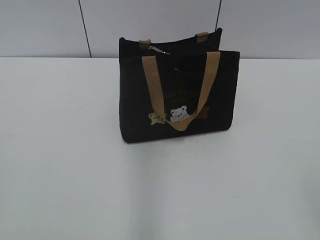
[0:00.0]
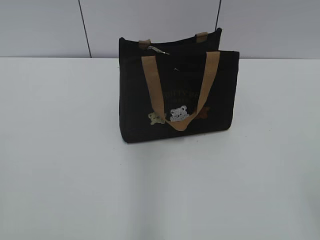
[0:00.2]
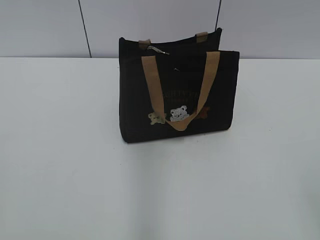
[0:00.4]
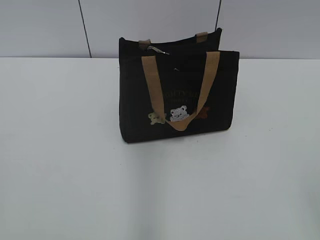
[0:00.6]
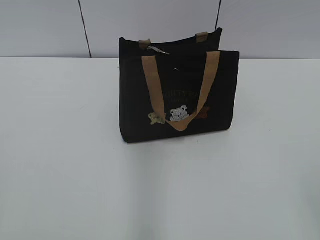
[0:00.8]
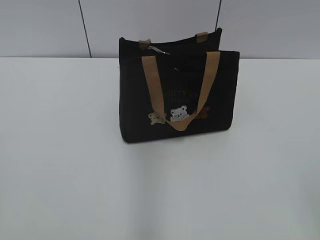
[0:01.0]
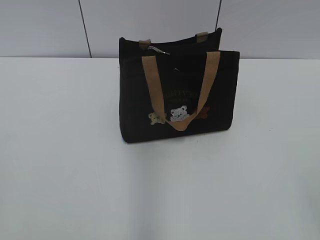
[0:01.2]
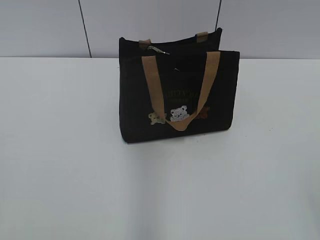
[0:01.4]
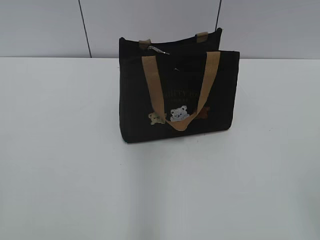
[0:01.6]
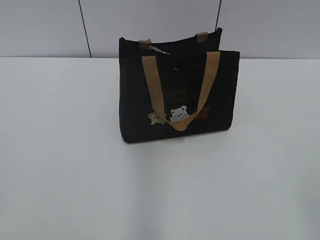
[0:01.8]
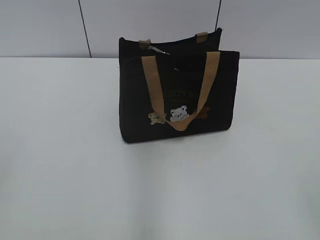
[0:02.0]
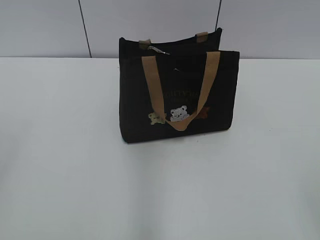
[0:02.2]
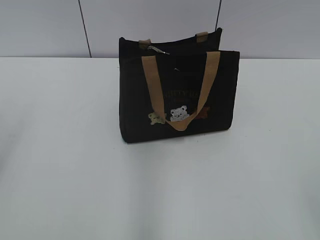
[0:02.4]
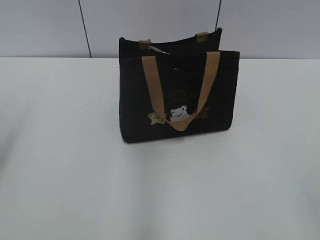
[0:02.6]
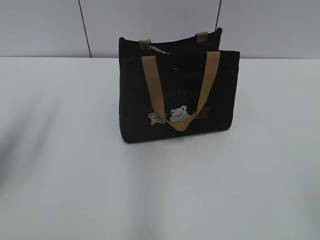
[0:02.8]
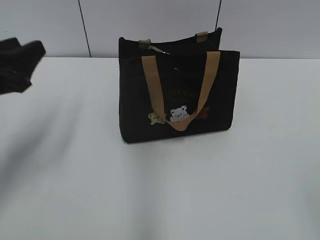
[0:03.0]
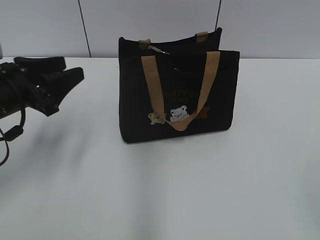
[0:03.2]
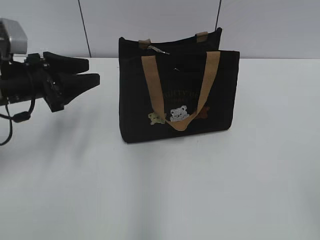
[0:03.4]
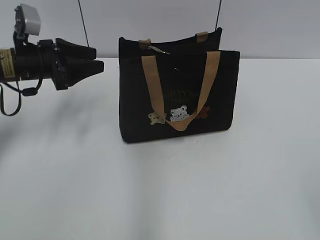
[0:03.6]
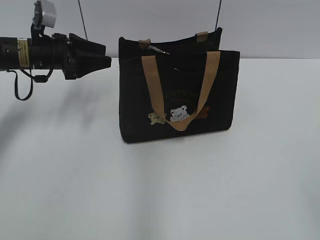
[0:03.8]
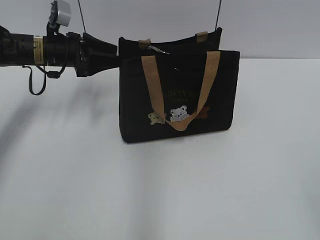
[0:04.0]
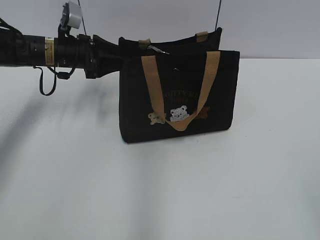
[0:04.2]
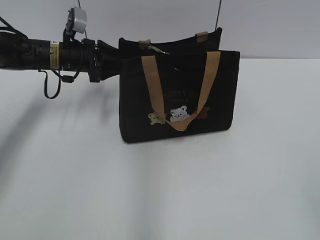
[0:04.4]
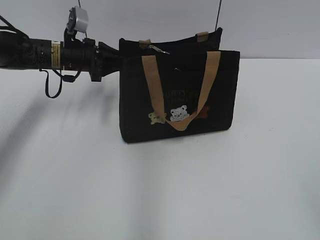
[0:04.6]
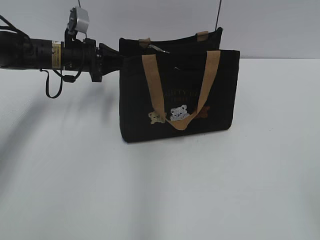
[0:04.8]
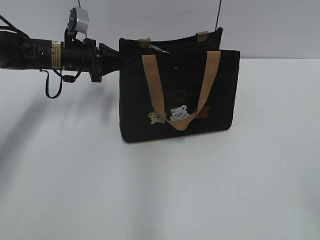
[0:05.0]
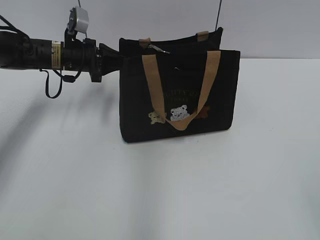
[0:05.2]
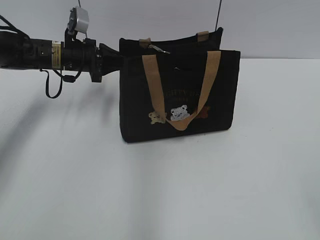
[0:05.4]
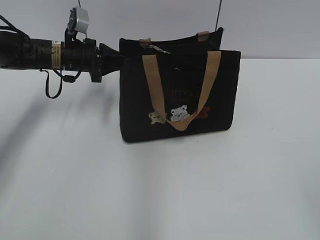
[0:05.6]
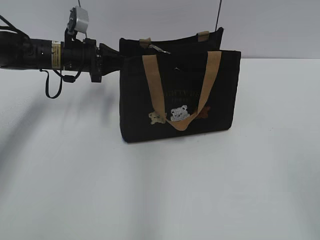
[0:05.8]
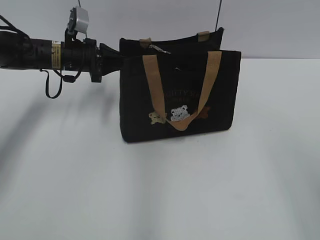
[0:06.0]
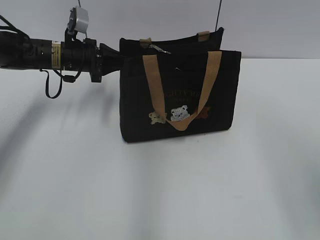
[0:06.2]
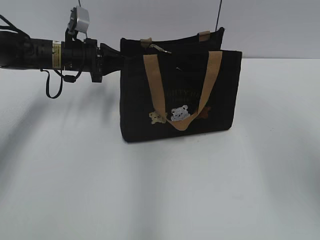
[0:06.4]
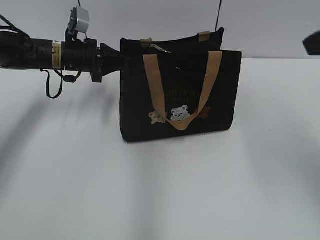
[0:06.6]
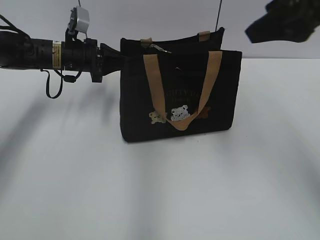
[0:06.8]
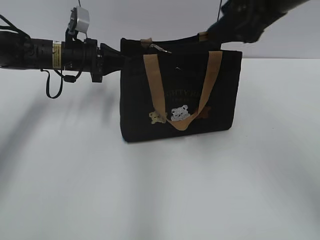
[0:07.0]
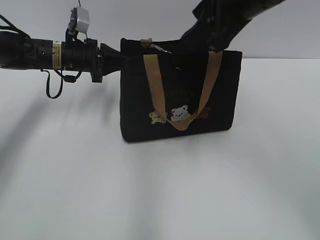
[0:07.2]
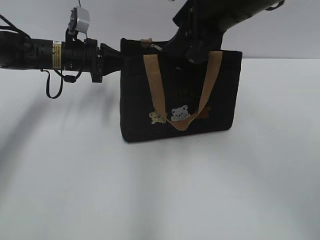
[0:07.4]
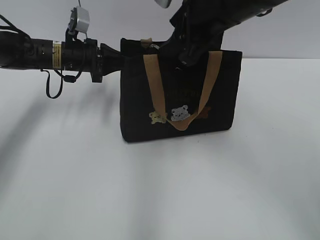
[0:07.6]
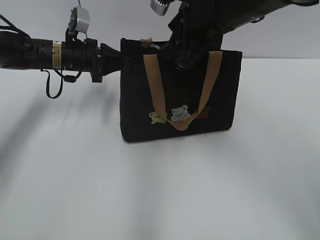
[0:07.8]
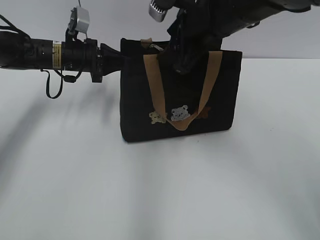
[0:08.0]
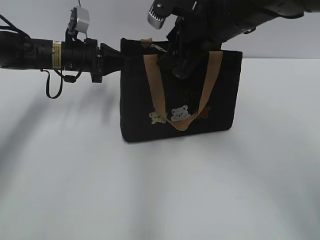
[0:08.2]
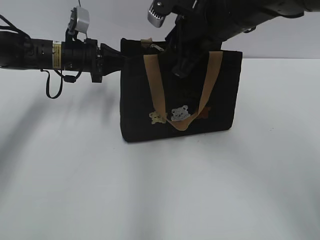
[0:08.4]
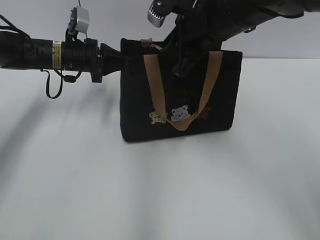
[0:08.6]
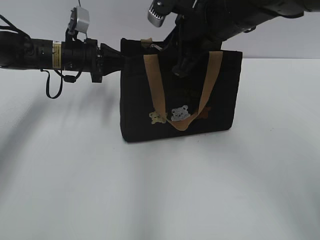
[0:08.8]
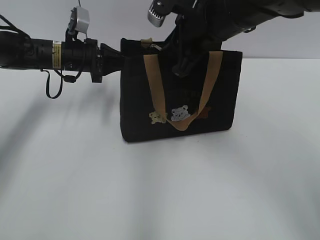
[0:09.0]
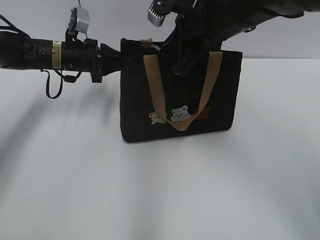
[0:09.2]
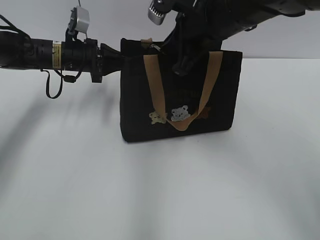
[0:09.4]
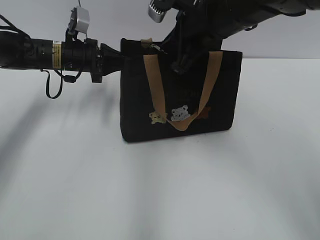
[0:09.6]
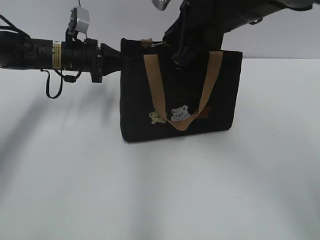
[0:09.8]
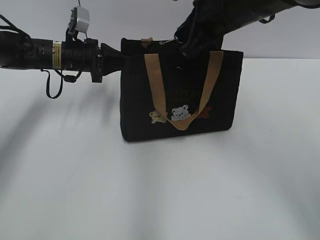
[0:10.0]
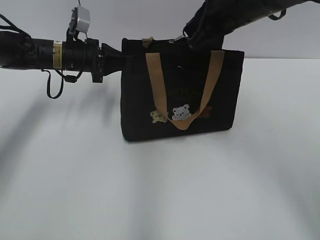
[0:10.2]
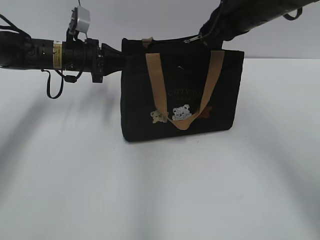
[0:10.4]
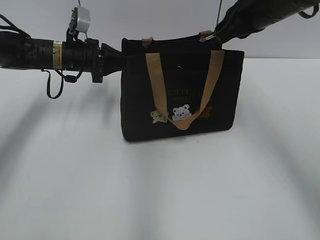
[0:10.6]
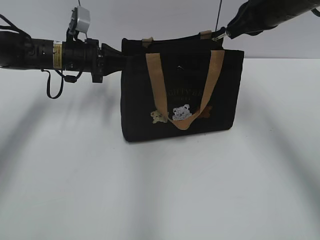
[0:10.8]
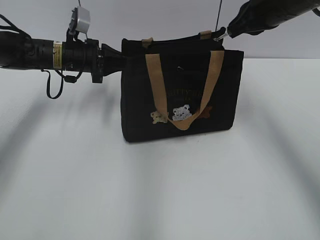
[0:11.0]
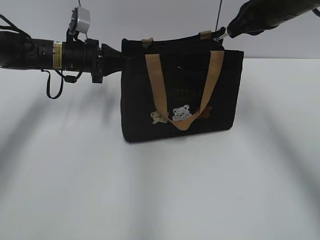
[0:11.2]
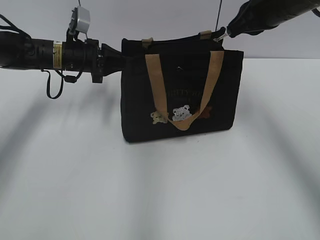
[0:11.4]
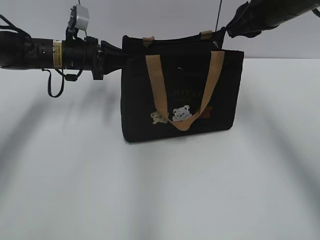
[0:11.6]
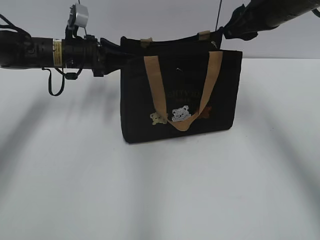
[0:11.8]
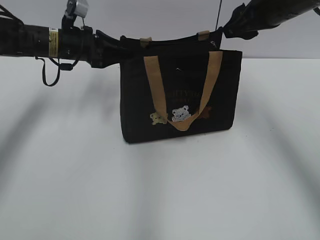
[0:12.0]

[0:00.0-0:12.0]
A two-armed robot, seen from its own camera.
Step, 0.0 to 11.4 s: Pull open the zipper with your right hand.
1.6 to 3.0 s: The left gripper shifts roughly 25 cm forward.
3.0 to 4.4 s: The left gripper moves forward, approximately 20 cm.
4.4 to 6.0 s: The right gripper moves forward, approximately 5 cm. The left gripper closes its fingers.
6.0 to 7.6 s: The right gripper is displaced forward and to the left by some 35 cm.
7.6 to 9.0 s: The right gripper closes up.
9.0 to 10.4 s: The right gripper heads to the right, covering about 5 cm.
10.4 to 12.0 s: The right gripper opens. Meanwhile the left gripper opens its fingers.

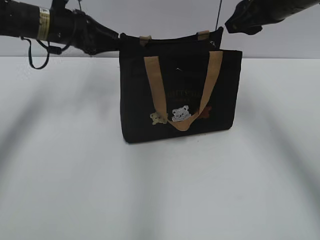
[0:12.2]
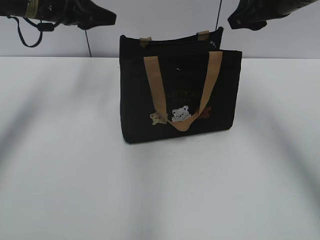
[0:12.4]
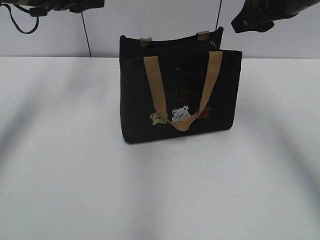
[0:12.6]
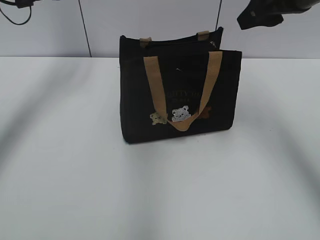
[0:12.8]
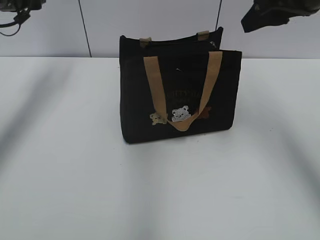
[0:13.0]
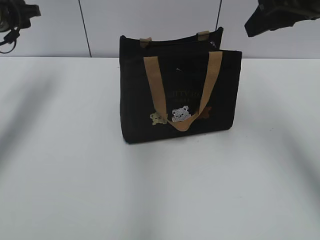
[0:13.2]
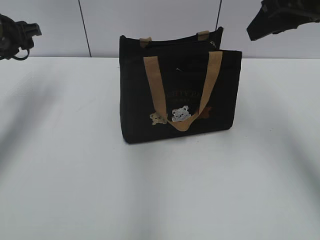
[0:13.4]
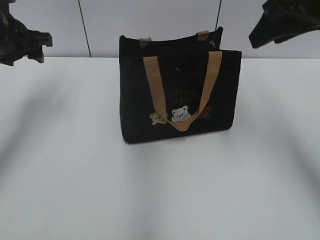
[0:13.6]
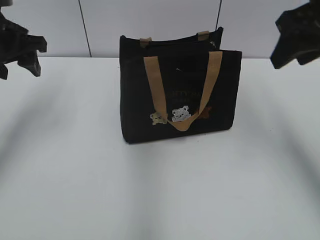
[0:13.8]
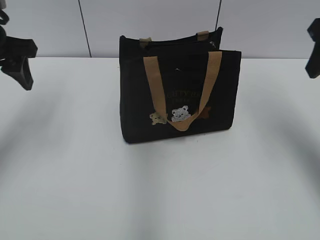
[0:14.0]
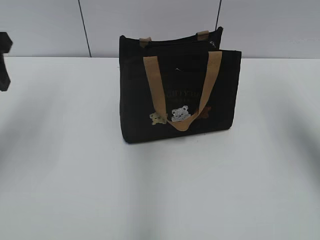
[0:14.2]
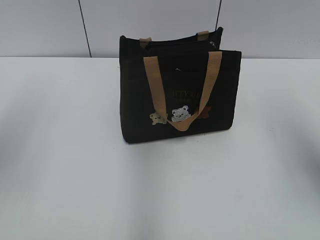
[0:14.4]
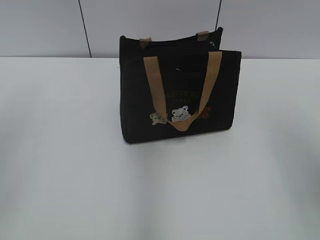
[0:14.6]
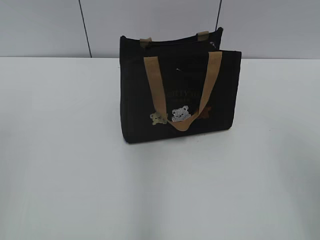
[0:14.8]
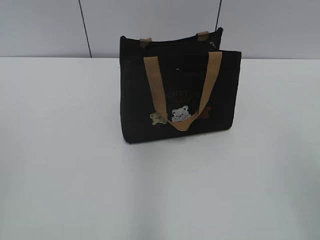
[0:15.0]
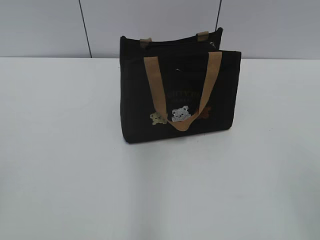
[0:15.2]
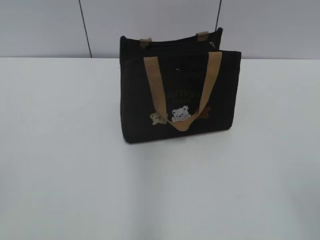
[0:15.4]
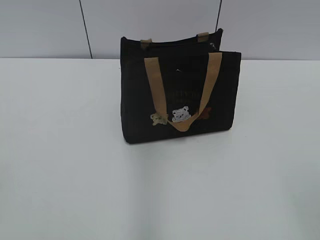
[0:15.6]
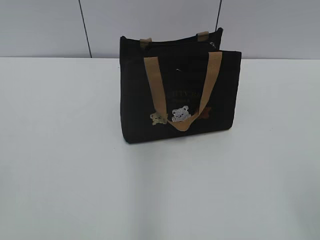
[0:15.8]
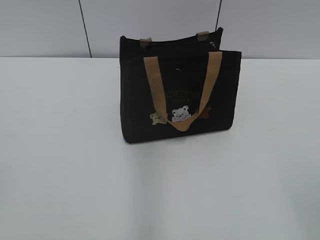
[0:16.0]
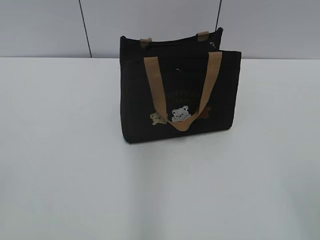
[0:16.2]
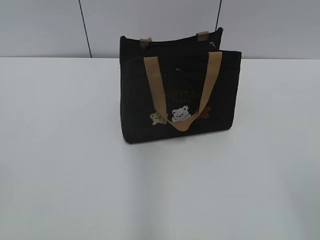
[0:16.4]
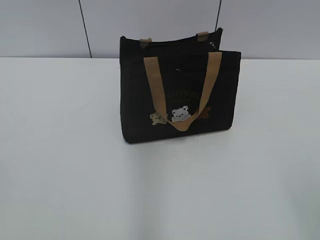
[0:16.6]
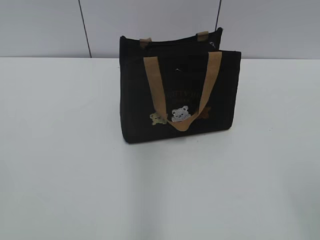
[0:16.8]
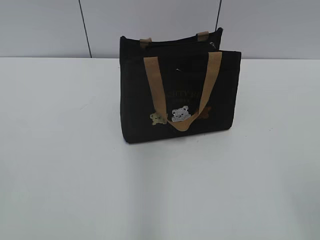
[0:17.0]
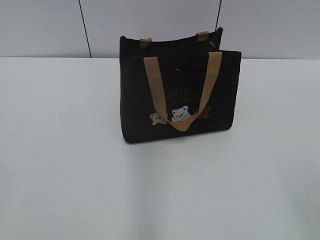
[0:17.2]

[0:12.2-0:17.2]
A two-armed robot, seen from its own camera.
12.2 to 13.8 s: The left gripper is displaced backward and to the left by some 10 cm. The right gripper is displaced backward by some 10 cm.
13.8 to 15.6 s: Both grippers move backward, some 35 cm.

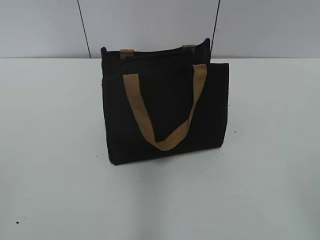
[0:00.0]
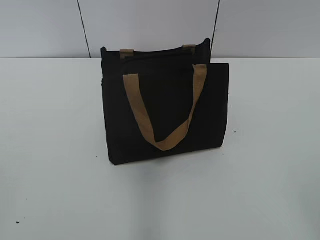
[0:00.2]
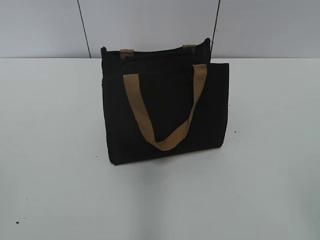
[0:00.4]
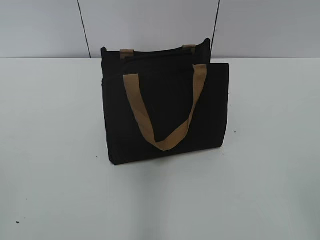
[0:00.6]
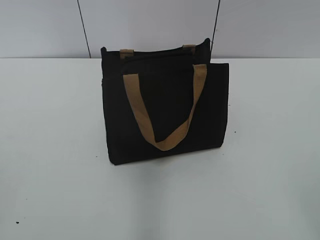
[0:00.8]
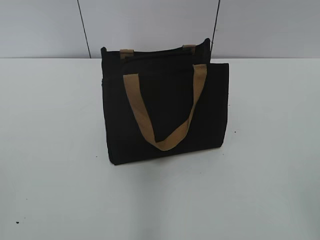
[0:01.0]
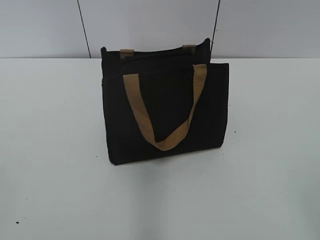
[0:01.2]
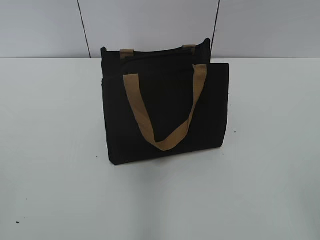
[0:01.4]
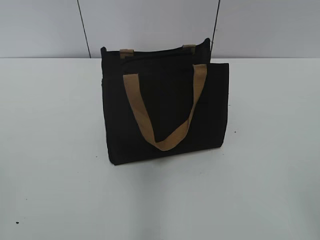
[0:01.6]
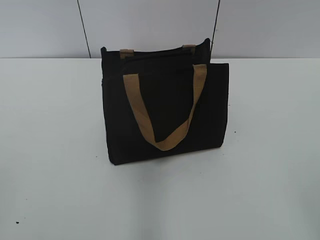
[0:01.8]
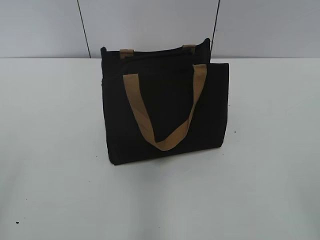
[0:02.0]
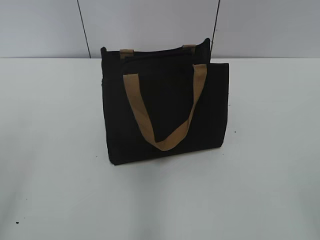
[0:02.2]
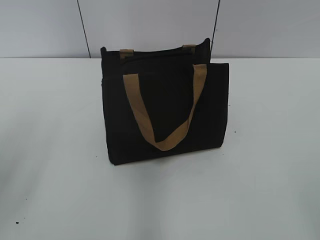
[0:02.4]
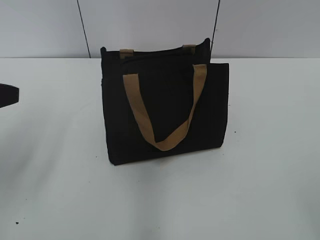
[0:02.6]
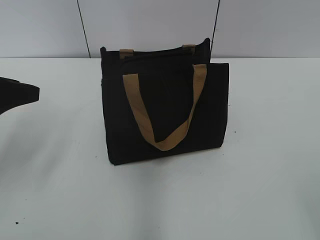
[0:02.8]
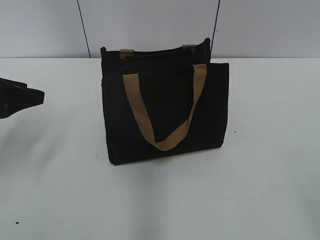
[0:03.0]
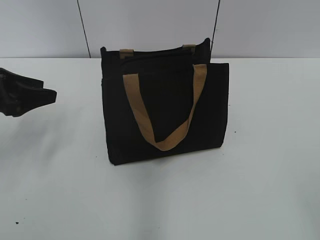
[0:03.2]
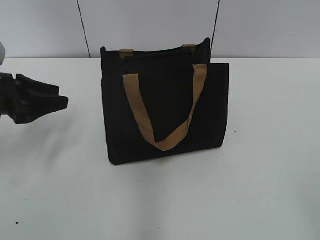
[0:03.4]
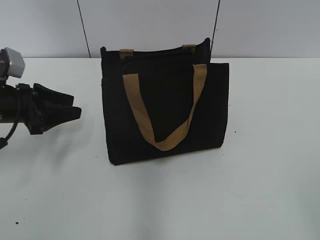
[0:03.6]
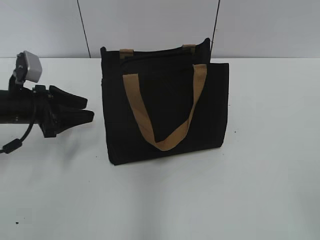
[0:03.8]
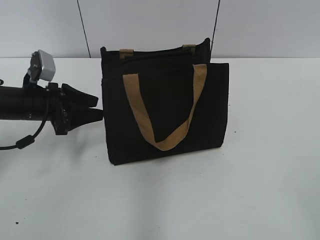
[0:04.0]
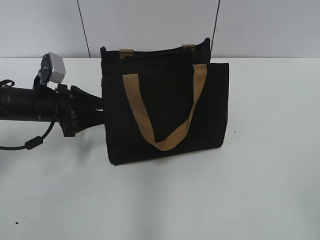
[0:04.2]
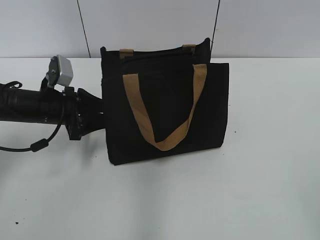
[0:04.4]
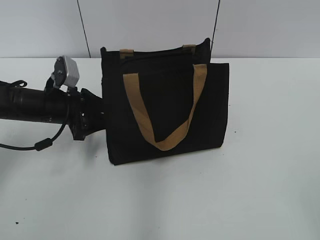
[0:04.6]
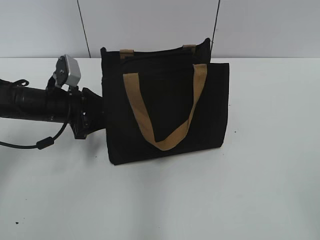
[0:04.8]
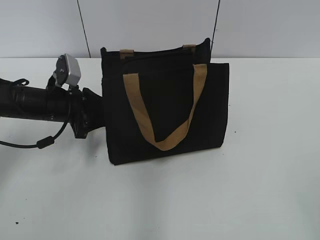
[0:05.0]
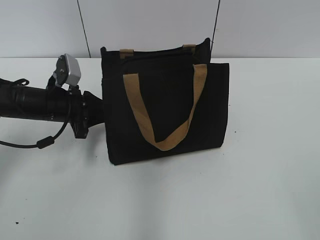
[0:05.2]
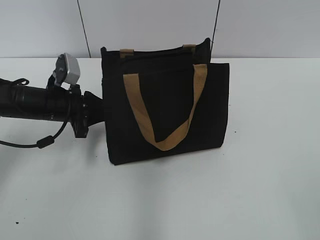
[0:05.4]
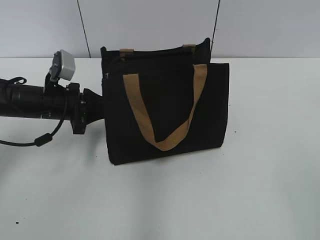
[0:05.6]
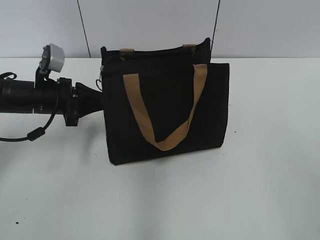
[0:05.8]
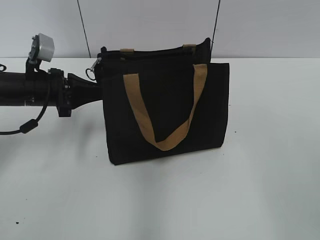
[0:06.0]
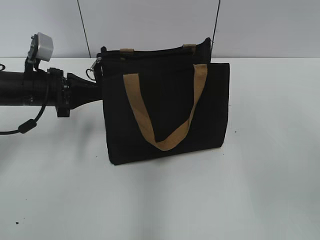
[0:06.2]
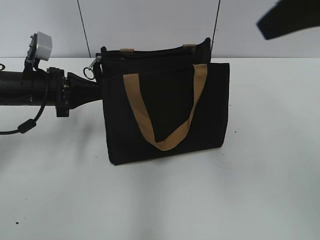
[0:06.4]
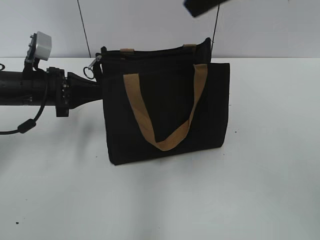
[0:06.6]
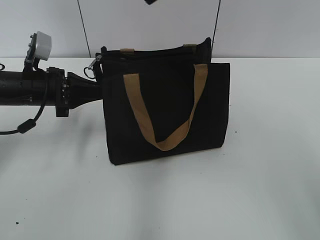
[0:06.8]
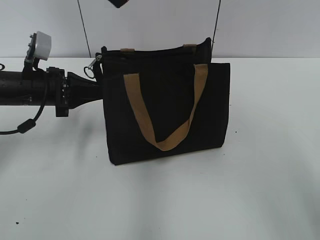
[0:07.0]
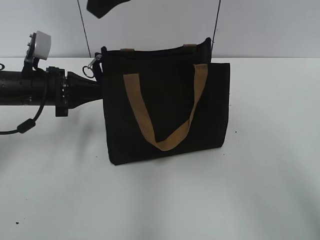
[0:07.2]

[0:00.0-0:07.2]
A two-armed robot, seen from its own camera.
1.4 to 2.8 s: The left gripper moves forward, roughly 25 cm, and opens its fingers.
2.8 to 4.4 s: The left gripper moves downward, forward and to the right, roughly 20 cm.
4.4 to 5.8 s: The left gripper closes.
5.8 to 7.2 s: The right gripper moves forward and to the left, some 40 cm.
